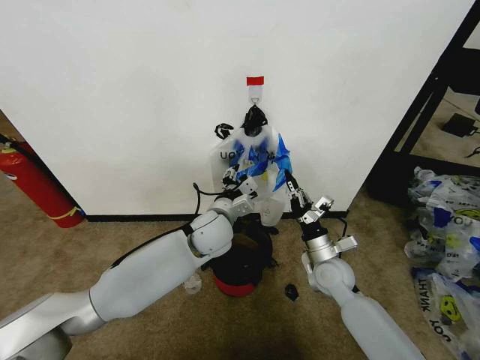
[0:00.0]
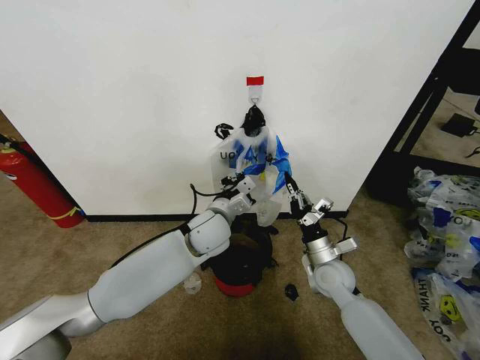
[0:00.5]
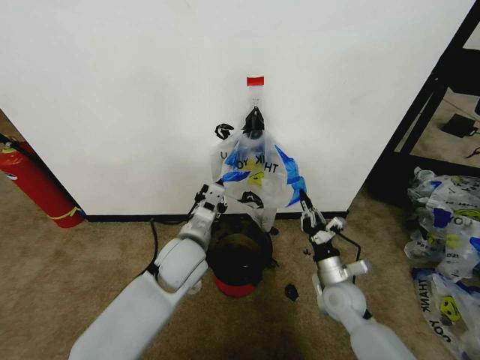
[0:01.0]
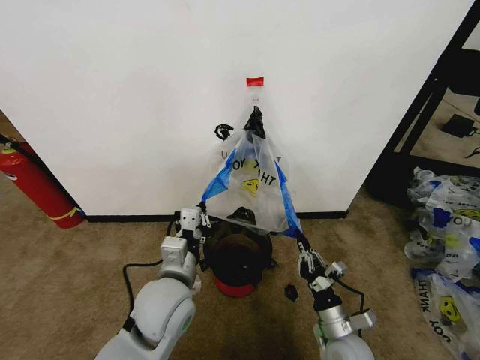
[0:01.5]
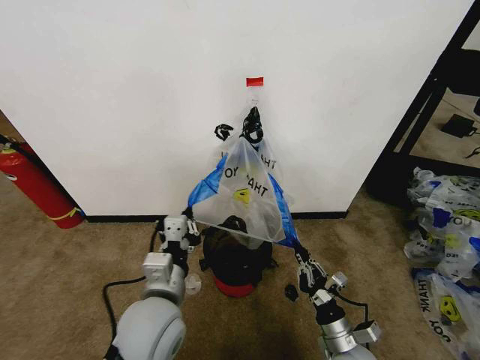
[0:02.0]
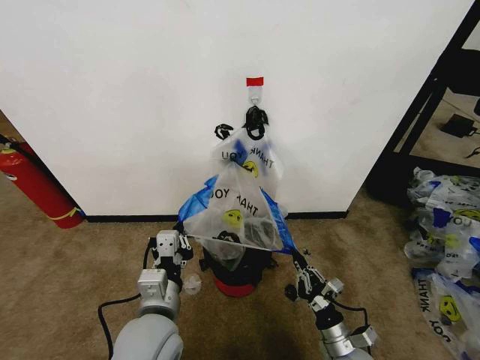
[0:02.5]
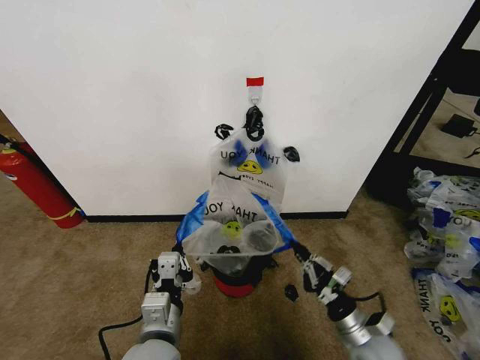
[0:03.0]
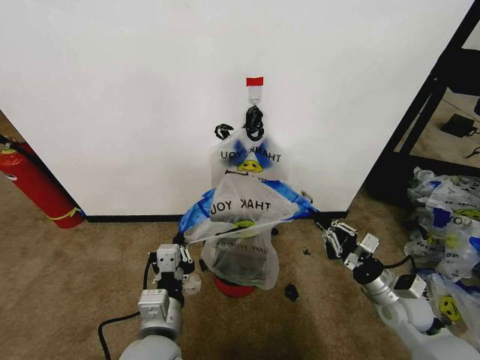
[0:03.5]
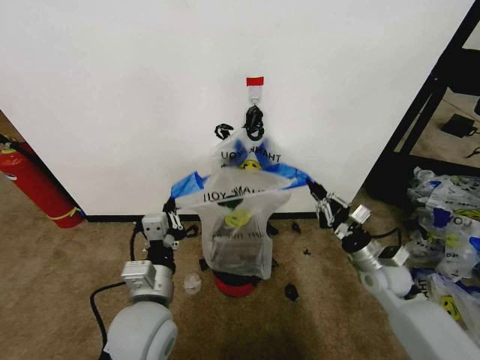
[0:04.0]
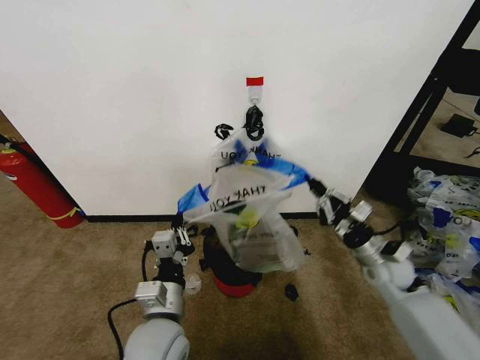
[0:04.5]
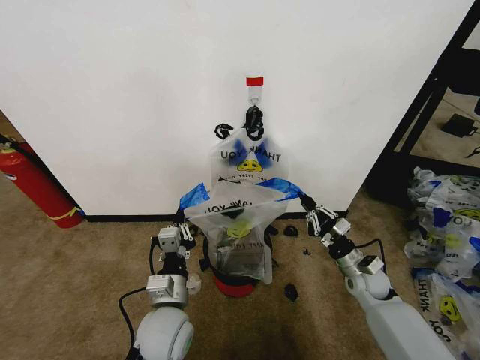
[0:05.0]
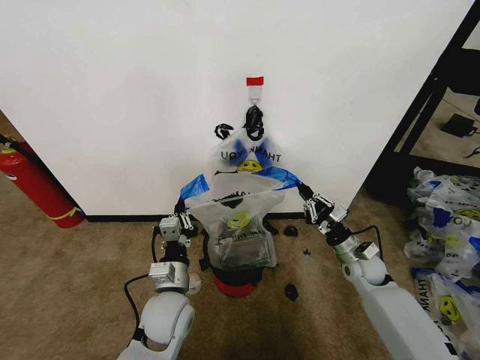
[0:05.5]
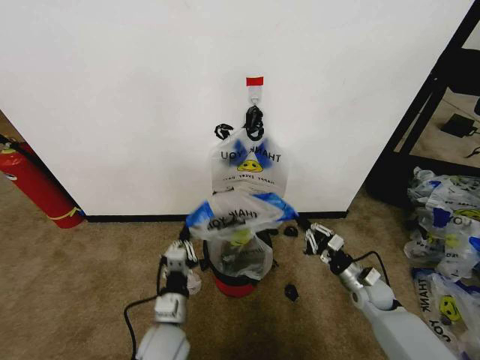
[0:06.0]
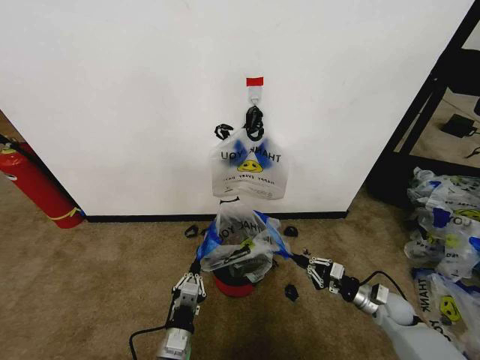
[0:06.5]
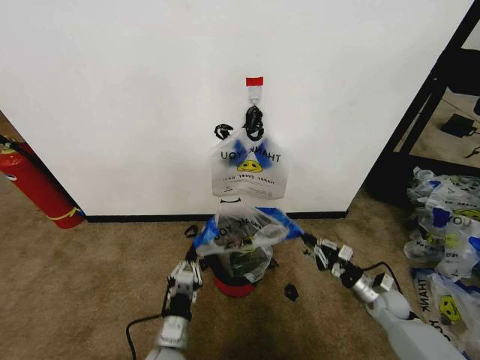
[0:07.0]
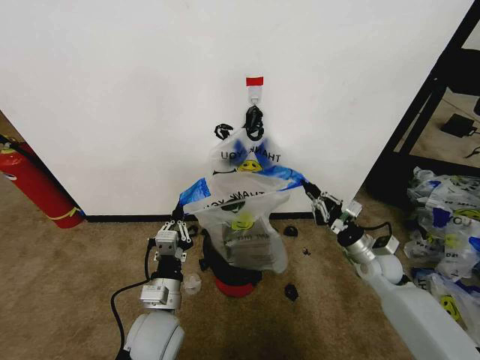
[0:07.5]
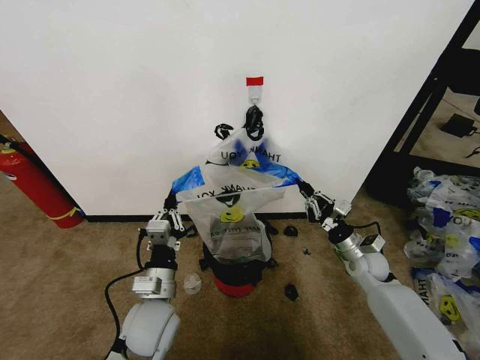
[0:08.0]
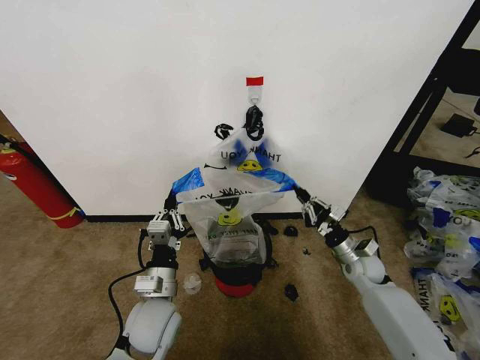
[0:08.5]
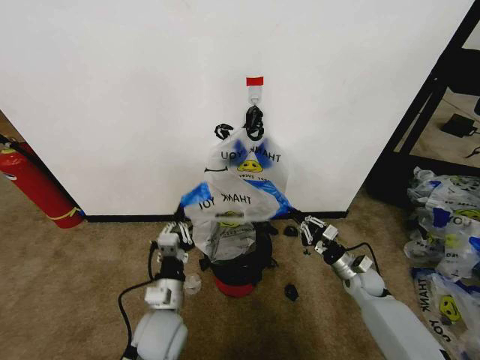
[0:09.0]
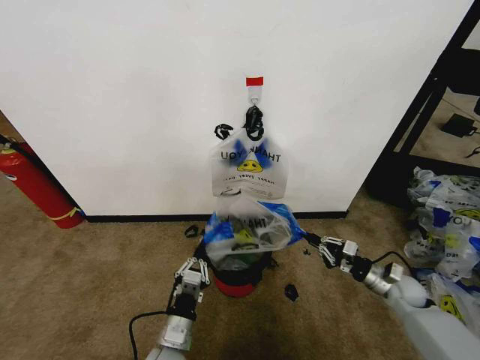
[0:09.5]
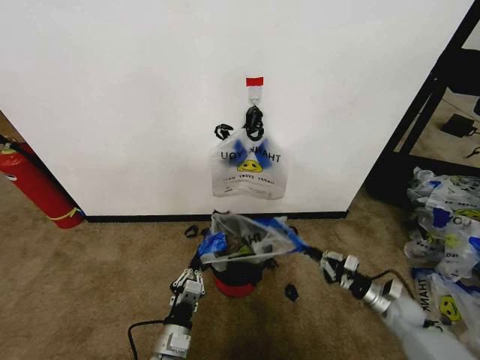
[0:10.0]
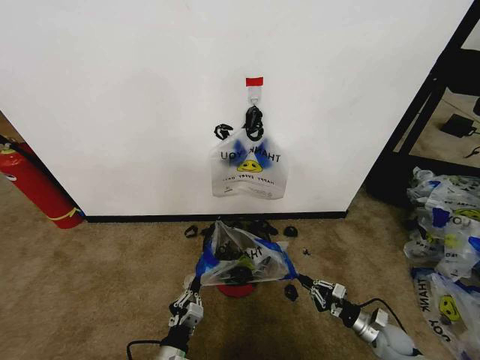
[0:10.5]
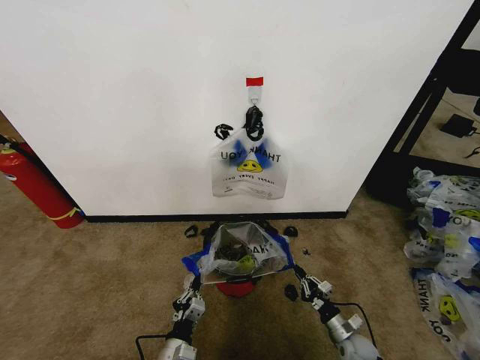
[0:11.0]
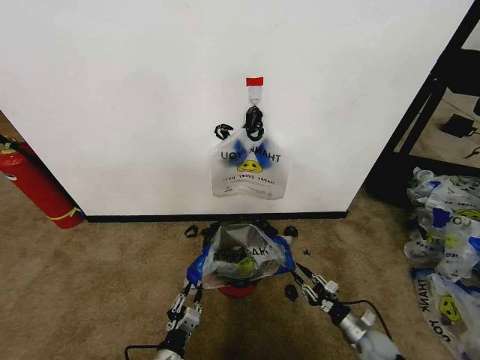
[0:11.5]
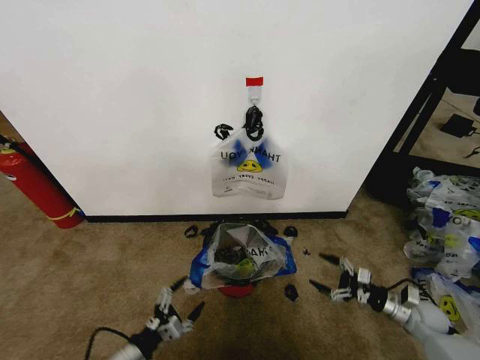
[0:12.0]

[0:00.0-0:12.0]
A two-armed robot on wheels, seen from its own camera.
Task of the whole recording: Pick up the garbage bag from the wall and place it over the trash bin.
0:00.0 to 0:02.0: The right gripper travels backward and downward by some 20 cm; the left gripper goes some 20 cm backward, and closes up.
0:02.0 to 0:04.0: The right gripper moves forward, upward and to the right, some 20 cm.
0:04.0 to 0:06.0: Both grippers move downward, roughly 15 cm.
0:06.0 to 0:08.0: The two grippers go roughly 5 cm upward.
0:08.0 to 0:10.0: The left gripper shifts approximately 15 cm downward and backward, while the right gripper travels downward, backward and to the right by approximately 15 cm.
0:10.0 to 0:12.0: The right gripper moves to the right, some 5 cm, and opens. The left gripper moves to the left, approximately 15 cm, and opens.

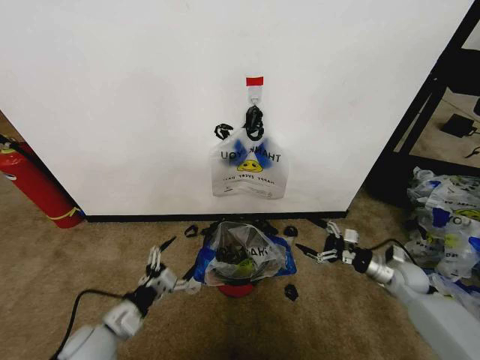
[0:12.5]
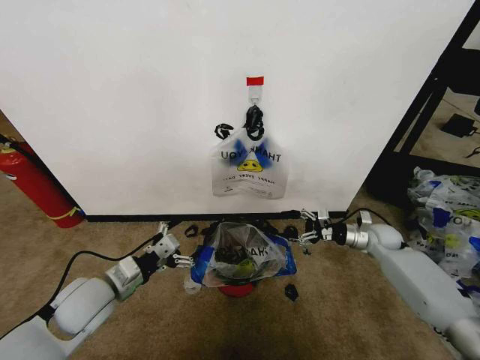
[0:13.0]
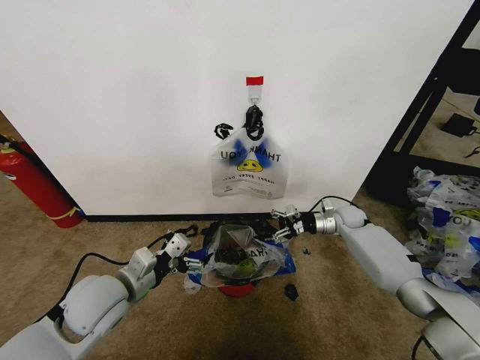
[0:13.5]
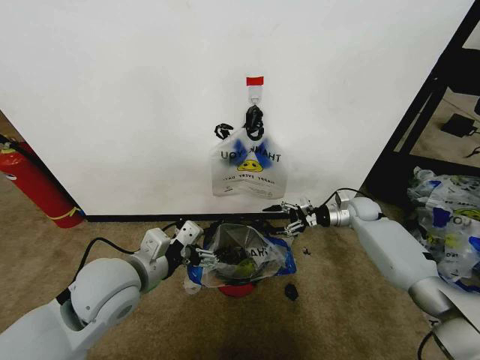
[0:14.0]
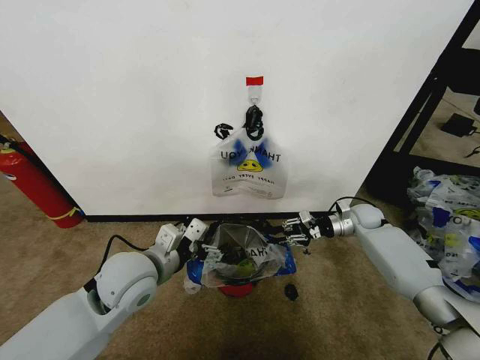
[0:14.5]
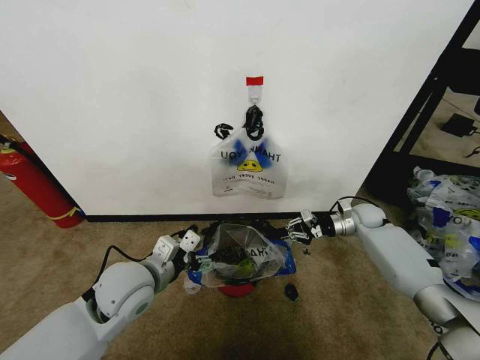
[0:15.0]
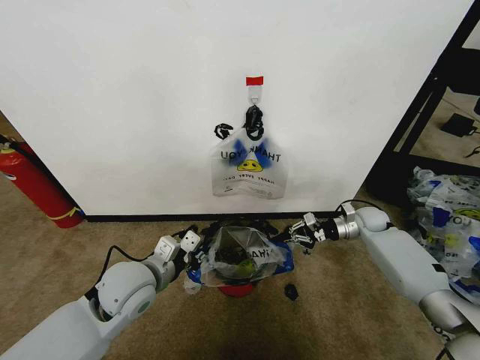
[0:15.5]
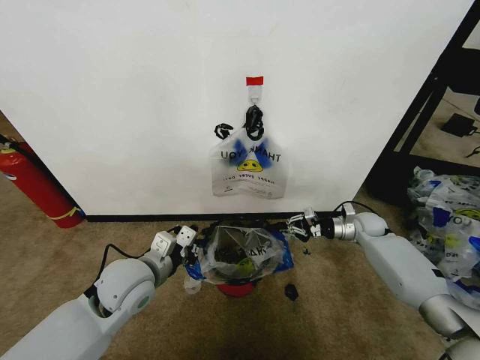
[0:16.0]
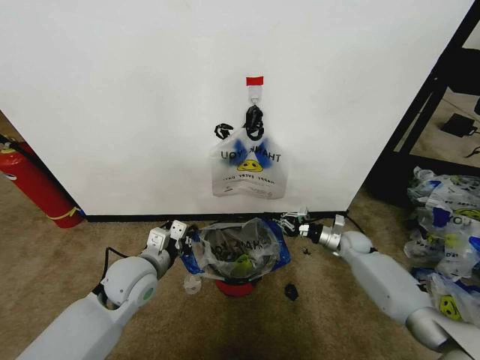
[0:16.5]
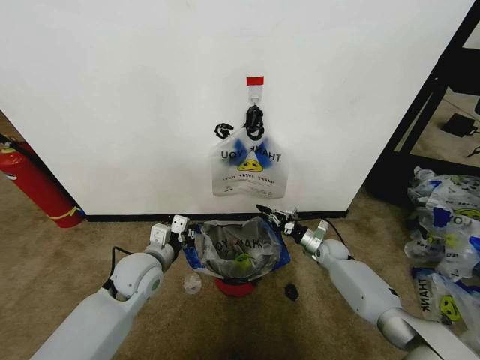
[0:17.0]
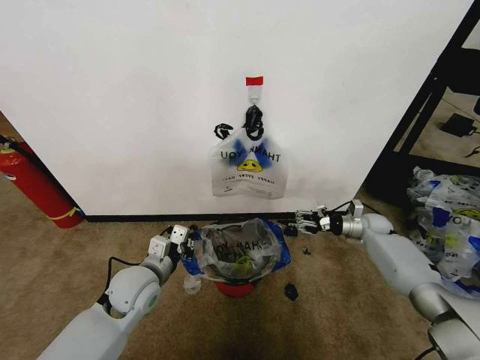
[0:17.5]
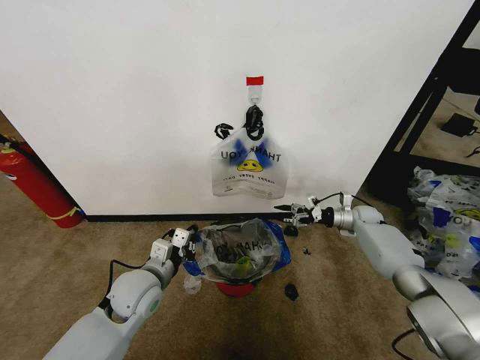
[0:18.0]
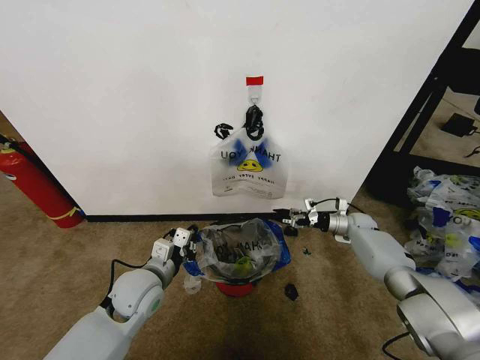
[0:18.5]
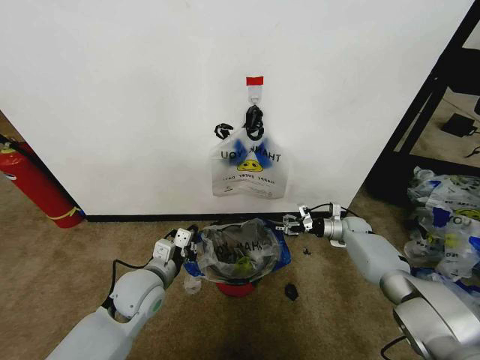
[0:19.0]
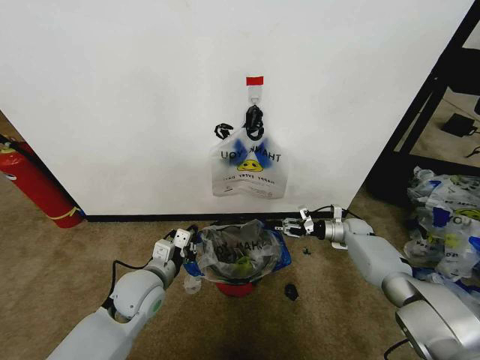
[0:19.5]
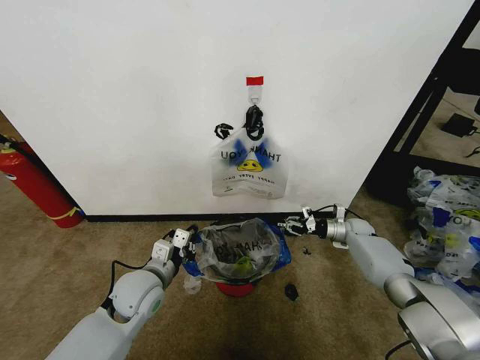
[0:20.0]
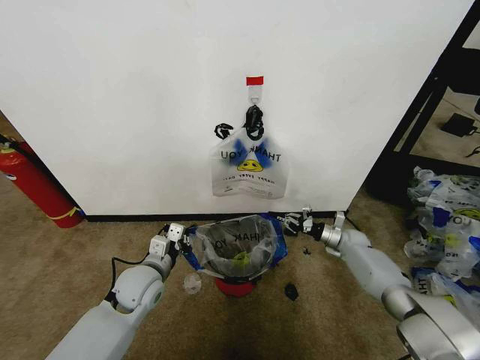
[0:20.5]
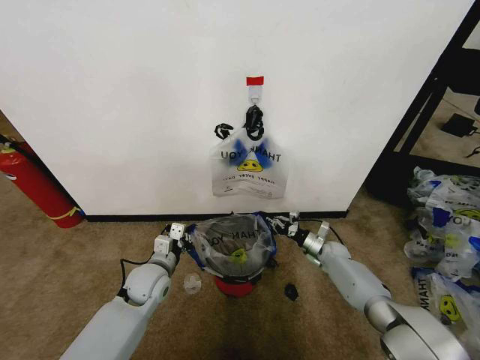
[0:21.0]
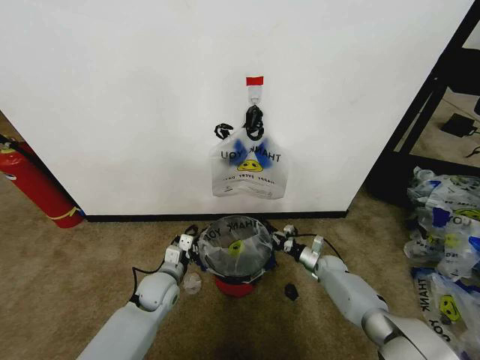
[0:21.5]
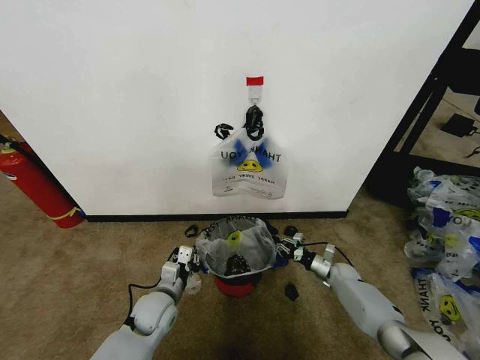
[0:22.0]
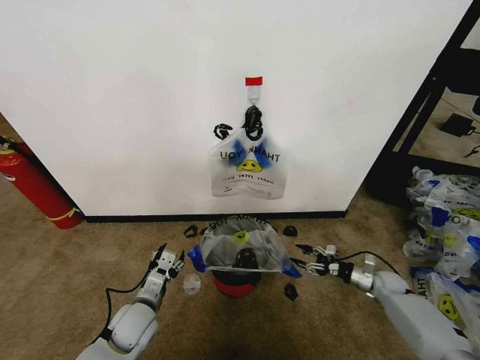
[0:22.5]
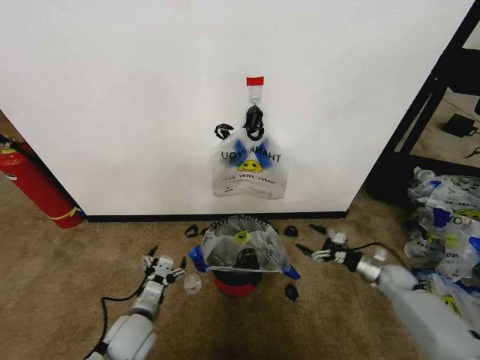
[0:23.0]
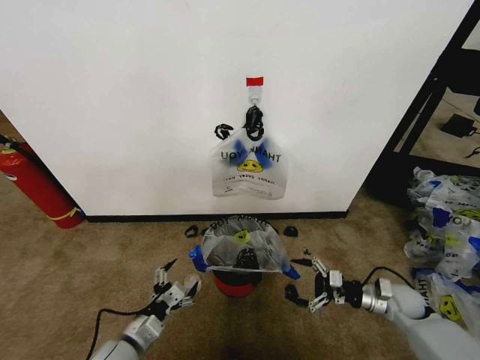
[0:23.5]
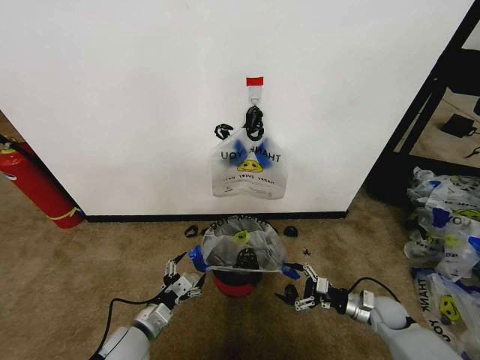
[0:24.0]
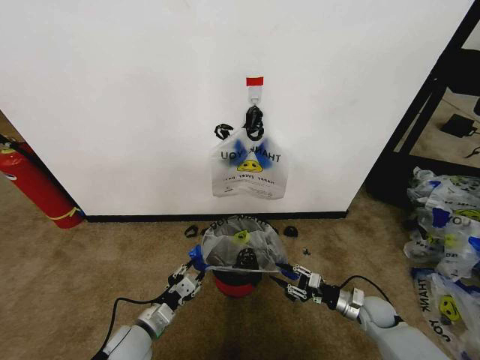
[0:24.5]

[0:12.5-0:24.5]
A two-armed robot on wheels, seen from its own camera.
Task of the whole recording: Pick up the garbage bag from the wall and place it over the trash bin.
0:12.5 to 0:14.5: The left gripper is displaced upward, to the right and forward by roughly 20 cm. The right gripper travels forward by roughly 15 cm, and closes up.
0:14.5 to 0:16.5: Both grippers travel together downward, about 5 cm. The left gripper closes up.
0:16.5 to 0:18.5: The right gripper heads forward, covering some 5 cm, and opens its fingers.
0:18.5 to 0:20.5: The right gripper ends up roughly 5 cm from where it was, and closes.
0:20.5 to 0:22.5: The left gripper moves downward and backward, approximately 10 cm, and opens, while the right gripper shifts about 15 cm backward and to the right, and opens.
0:22.5 to 0:24.5: The right gripper heads to the left and backward, covering roughly 10 cm.

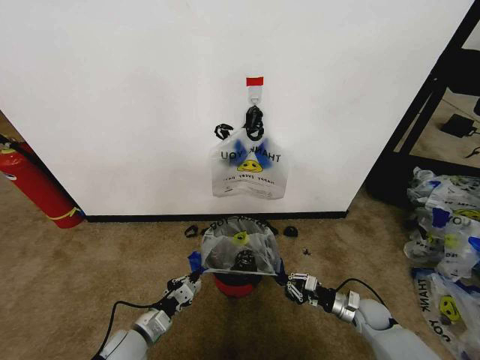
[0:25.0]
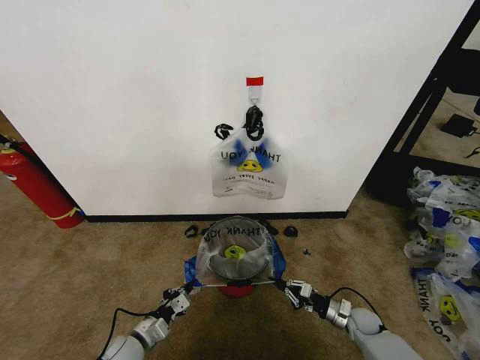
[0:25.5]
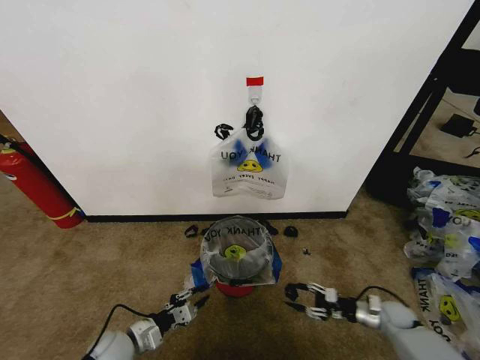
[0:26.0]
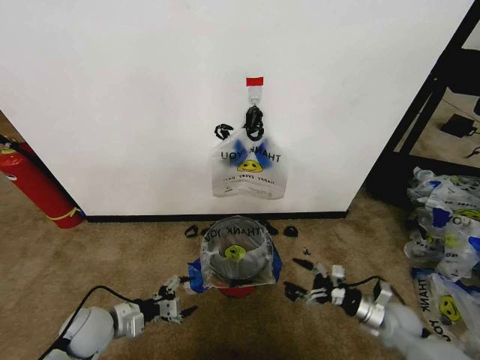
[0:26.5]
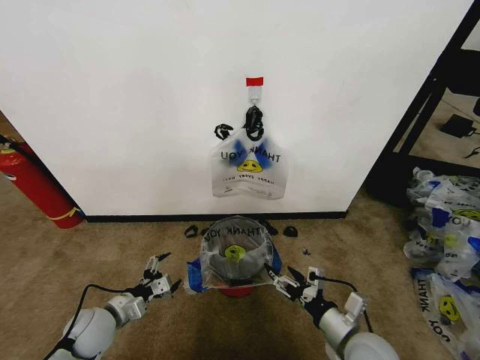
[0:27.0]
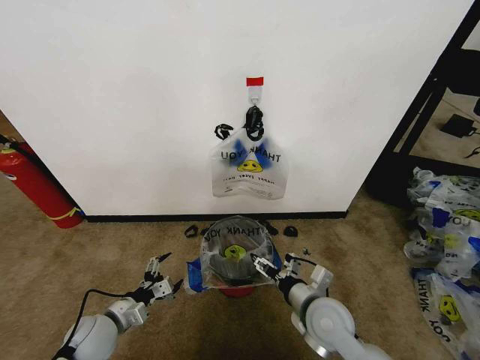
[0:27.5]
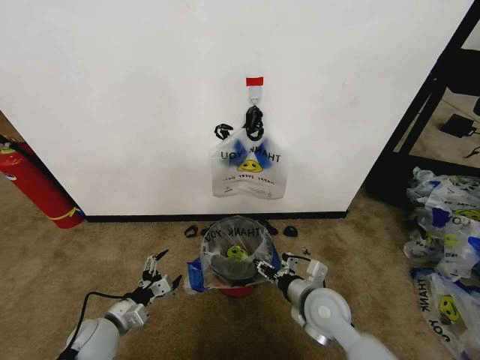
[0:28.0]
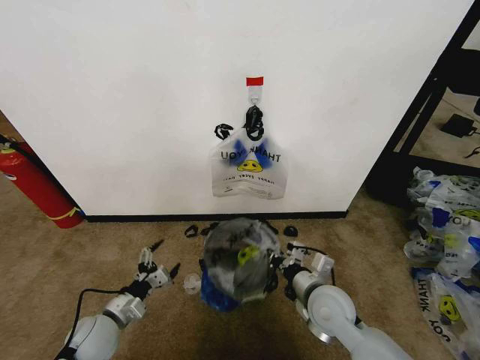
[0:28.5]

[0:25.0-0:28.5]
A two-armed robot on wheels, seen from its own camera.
Task of the whole recording: Pick up the garbage bag from the wall and place it over the trash bin.
0:25.0 to 0:27.0: The right gripper goes roughly 20 cm upward, backward and to the left, and opens its fingers. Meanwhile the left gripper goes approximately 10 cm to the left, and opens up.
0:27.0 to 0:28.5: The right gripper is displaced forward and to the left by roughly 10 cm, and closes its fingers.
